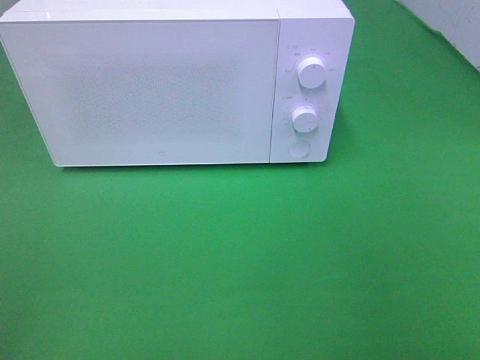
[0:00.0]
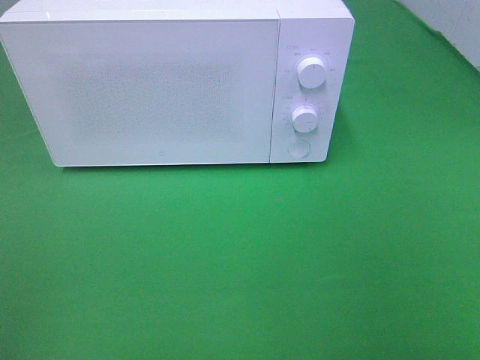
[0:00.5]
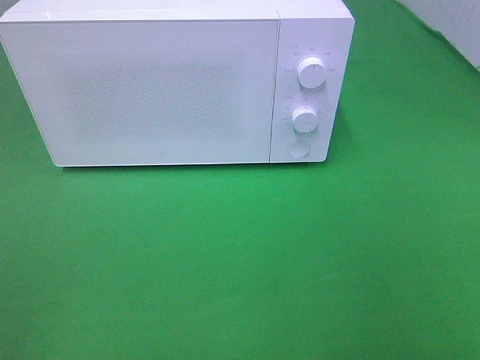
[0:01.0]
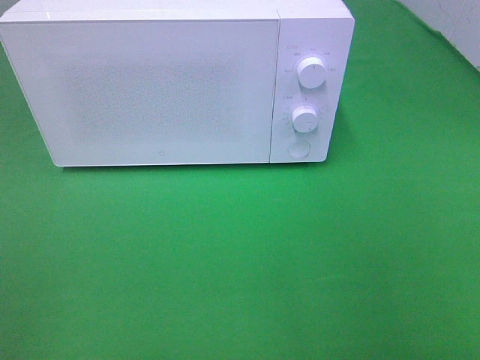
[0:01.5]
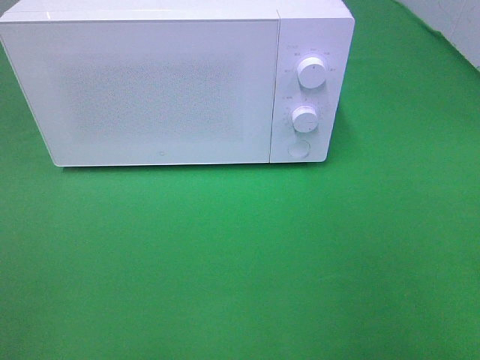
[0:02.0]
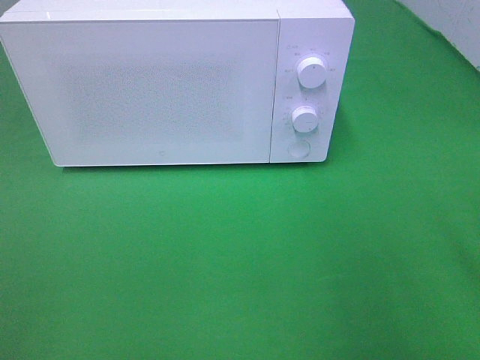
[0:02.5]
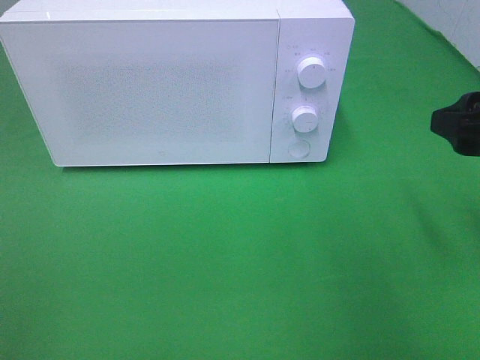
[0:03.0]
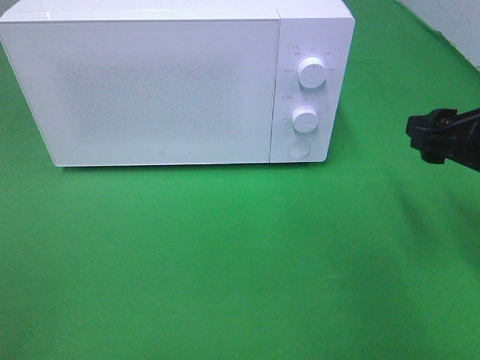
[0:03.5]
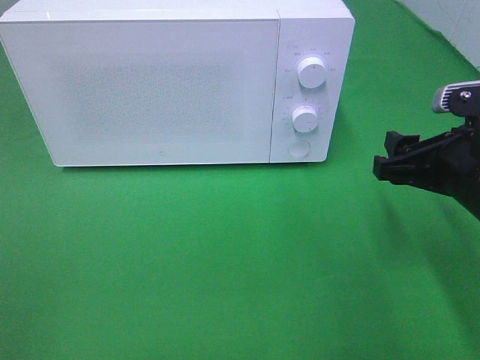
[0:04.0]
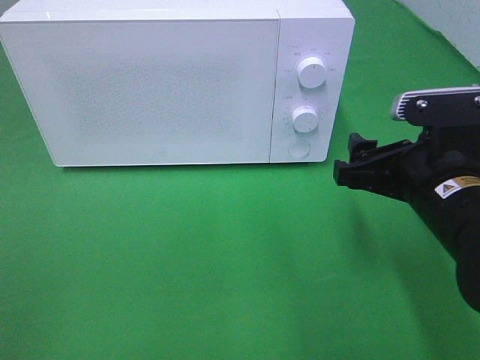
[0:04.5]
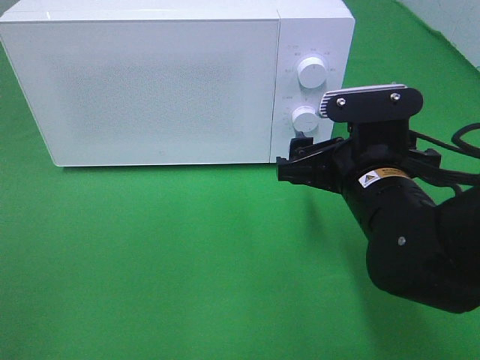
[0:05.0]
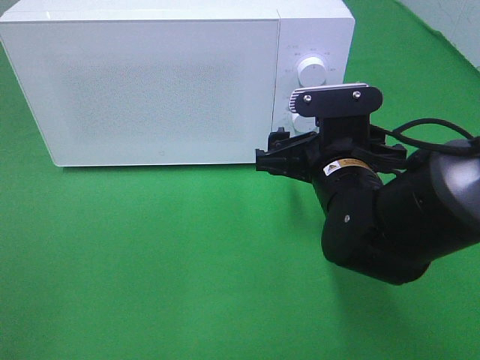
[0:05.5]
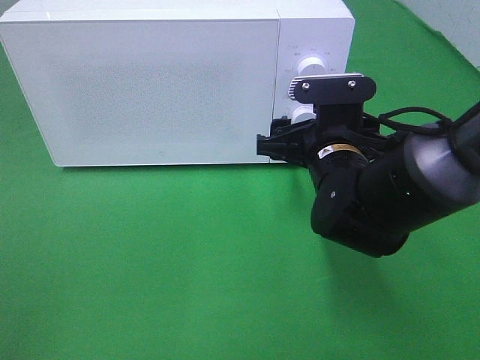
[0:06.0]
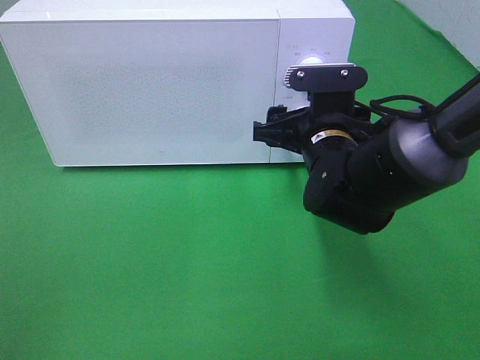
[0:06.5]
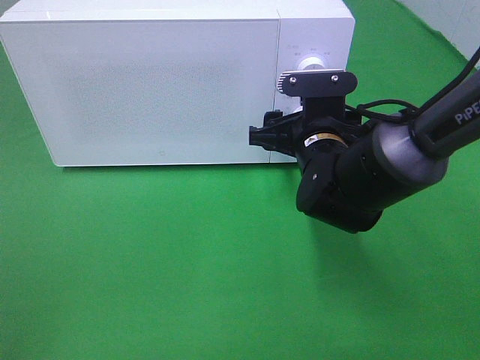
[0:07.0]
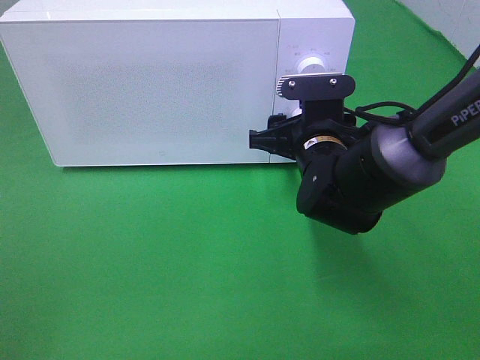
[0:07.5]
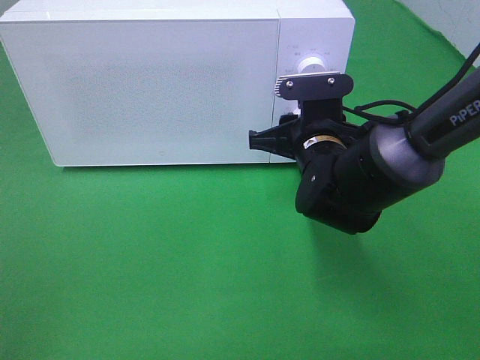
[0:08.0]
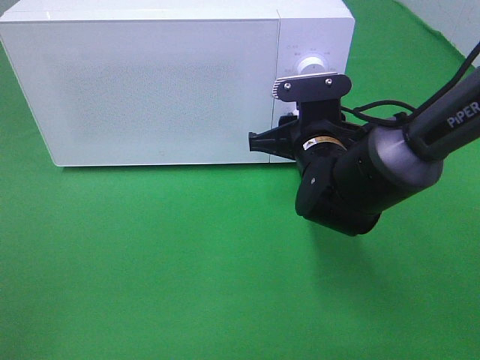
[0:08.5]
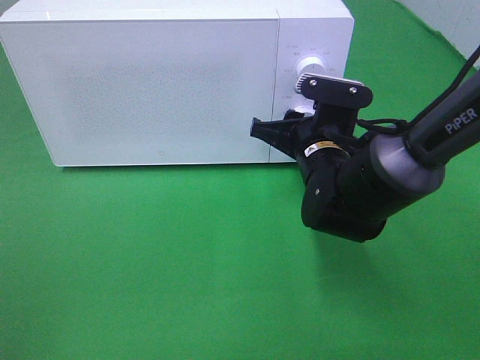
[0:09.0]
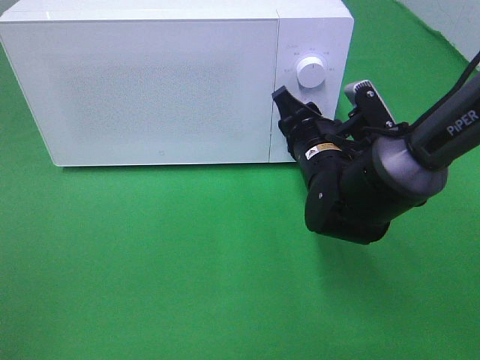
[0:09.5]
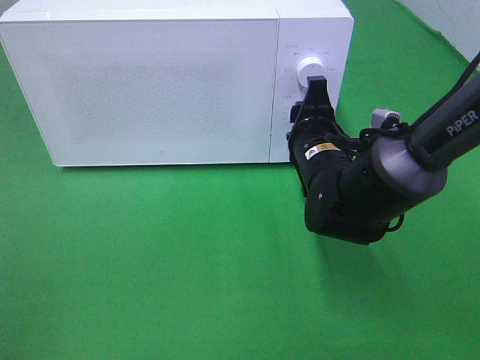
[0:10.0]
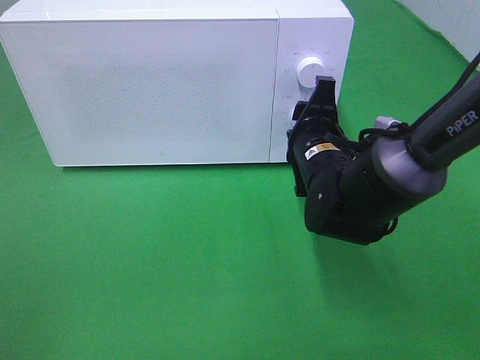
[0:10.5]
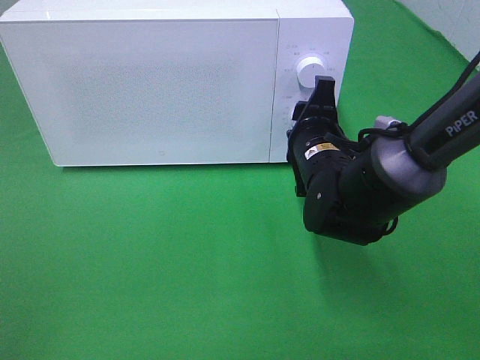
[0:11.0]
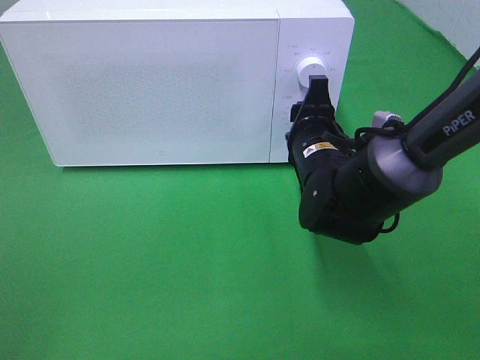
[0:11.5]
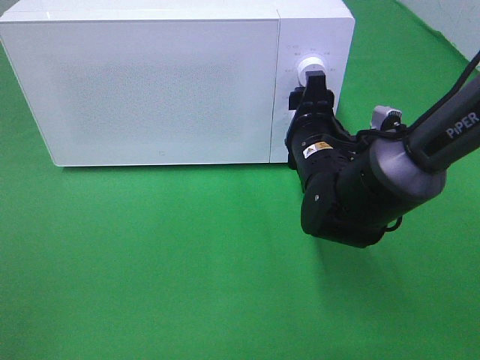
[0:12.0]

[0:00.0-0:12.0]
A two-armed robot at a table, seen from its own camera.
Task of the whole recording: Heat the burger.
0:02.0 to 0:04.0: The right gripper travels forward, downward and to the left by approximately 20 cm.
0:04.0 to 0:06.0: The right gripper shifts about 15 cm to the left and forward.
0:06.0 to 0:08.0: The right gripper closes its fingers.
0:10.0 to 0:12.0: The grippers stay close to where they were, moving slightly.

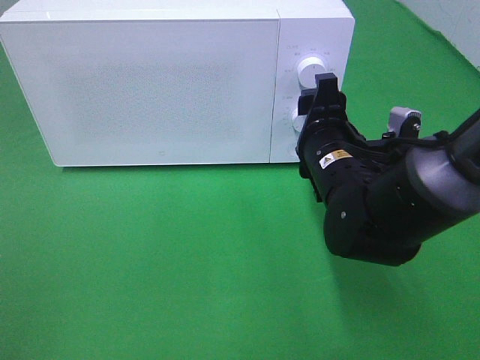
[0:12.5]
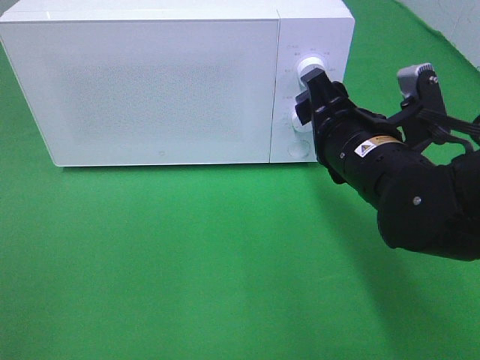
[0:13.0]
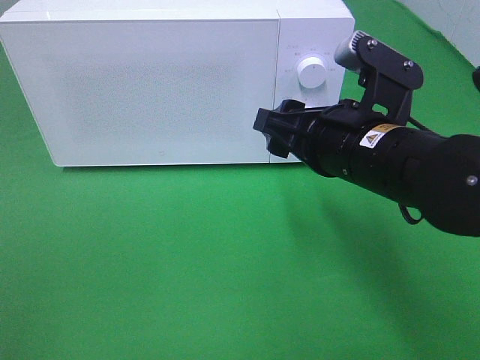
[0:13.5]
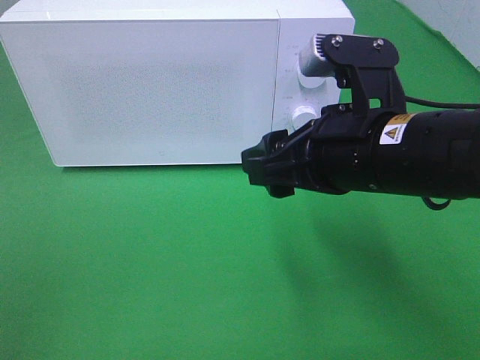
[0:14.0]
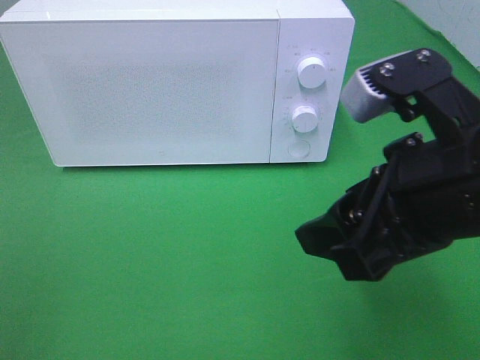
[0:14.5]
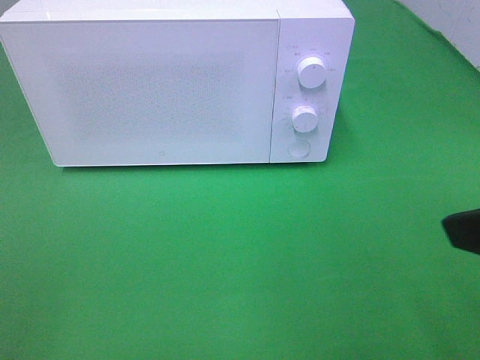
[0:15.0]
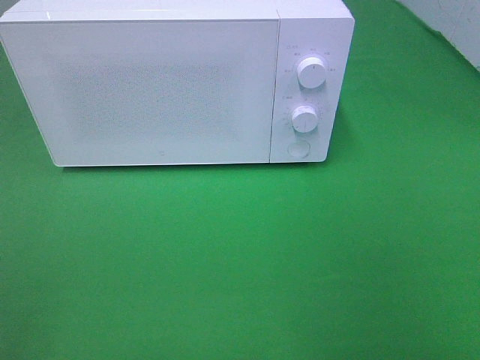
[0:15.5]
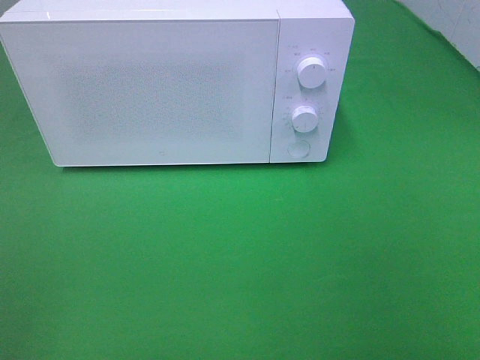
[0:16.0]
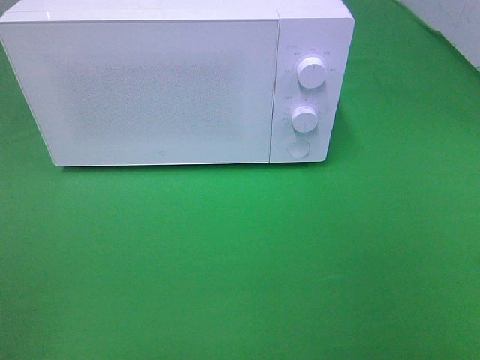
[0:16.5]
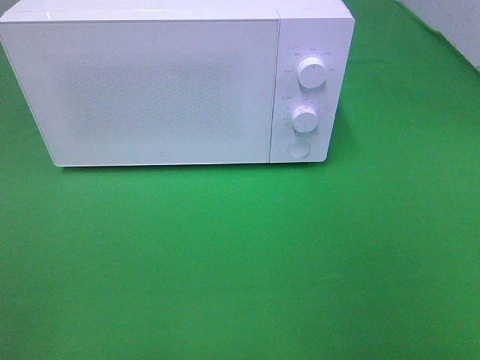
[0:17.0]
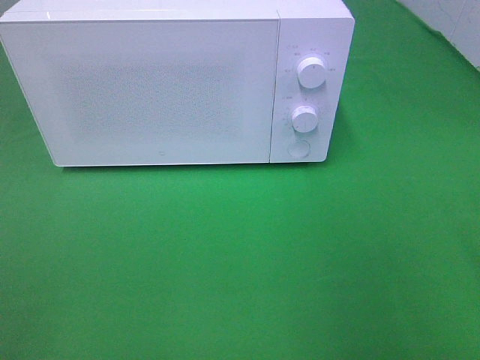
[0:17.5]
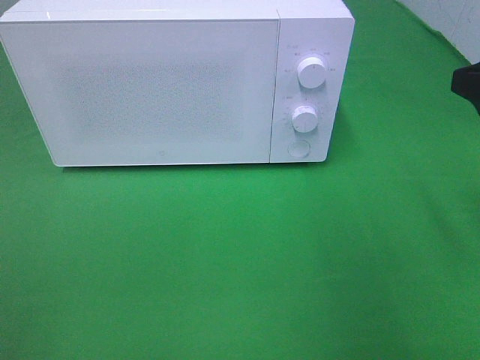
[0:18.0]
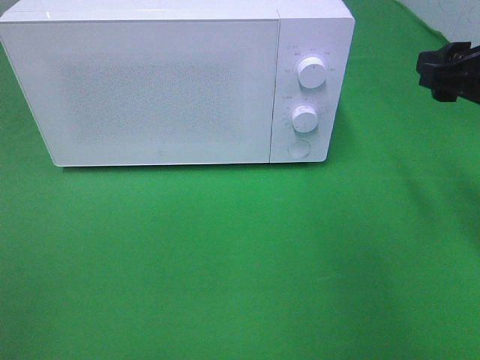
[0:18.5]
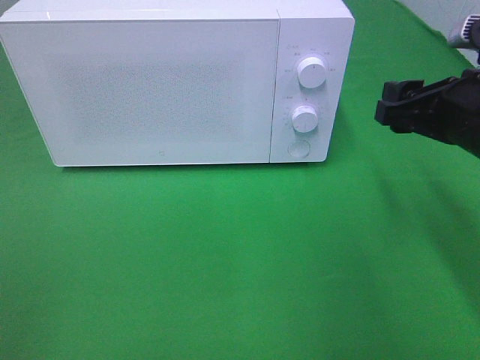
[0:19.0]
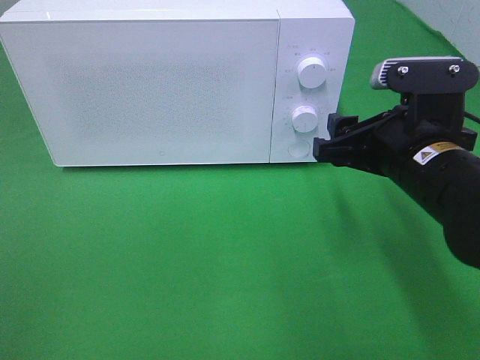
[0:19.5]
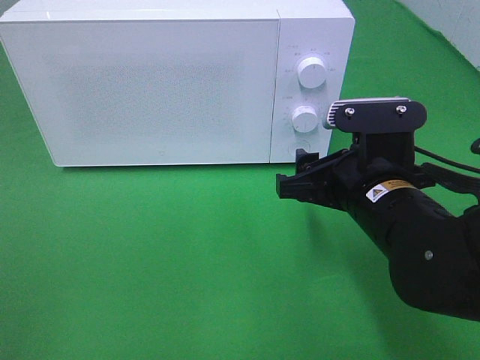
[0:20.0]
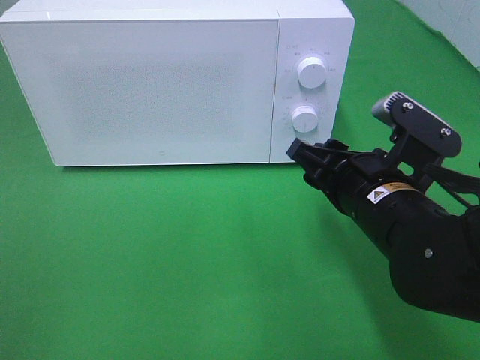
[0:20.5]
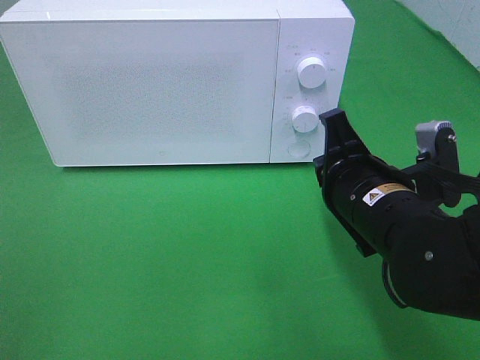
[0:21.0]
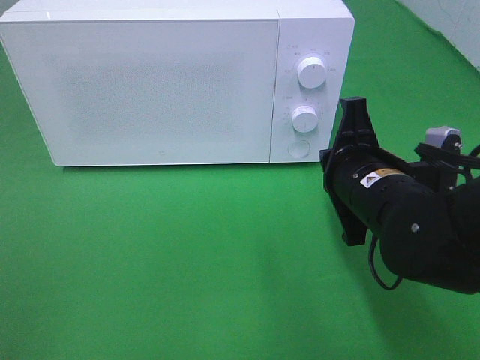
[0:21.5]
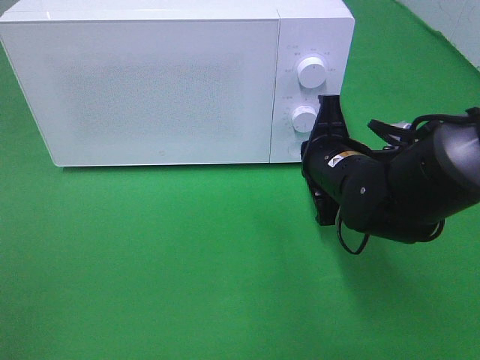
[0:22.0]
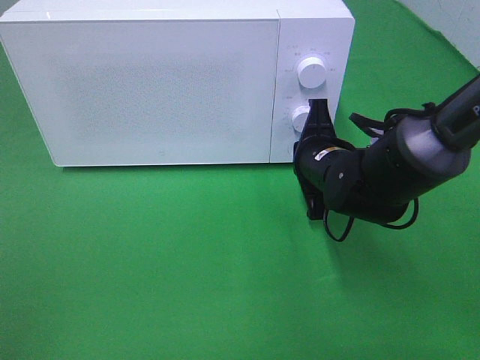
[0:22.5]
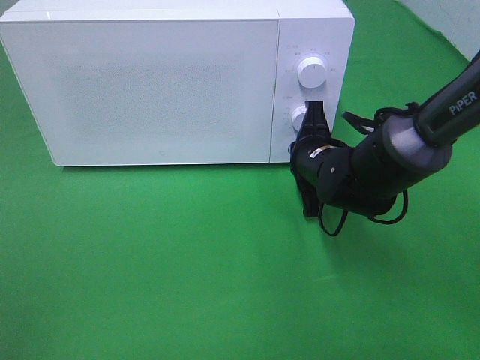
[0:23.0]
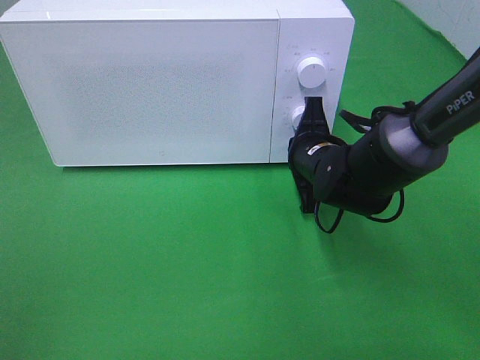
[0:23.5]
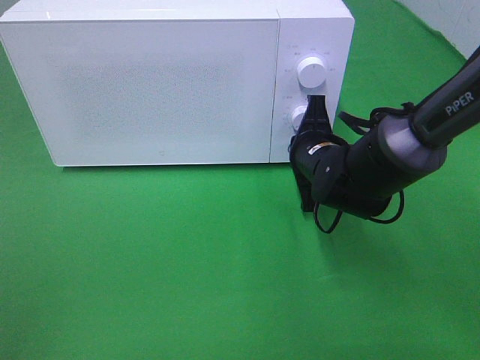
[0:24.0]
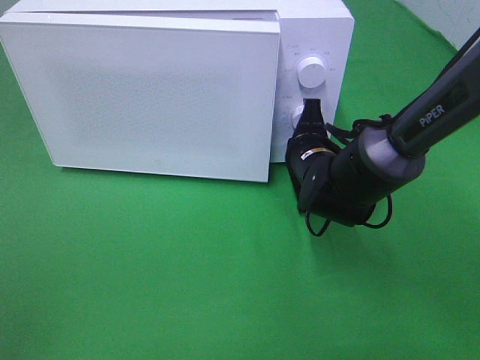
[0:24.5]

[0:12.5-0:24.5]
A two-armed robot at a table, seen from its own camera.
Task of the whole recording: Heat the burger.
0:12.5 to 0:14.5: The right gripper shifts approximately 20 cm backward and upward.
0:14.5 to 0:16.5: The right gripper shifts roughly 20 cm backward and to the right.
0:16.5 to 0:18.5: The right gripper is displaced forward by approximately 25 cm.
0:18.5 to 0:20.5: The right gripper shifts approximately 15 cm to the left and downward.
0:20.5 to 0:22.5: The right gripper moves forward and downward, about 10 cm, and closes its fingers.
0:22.5 to 0:24.5: The grippers move only a little.

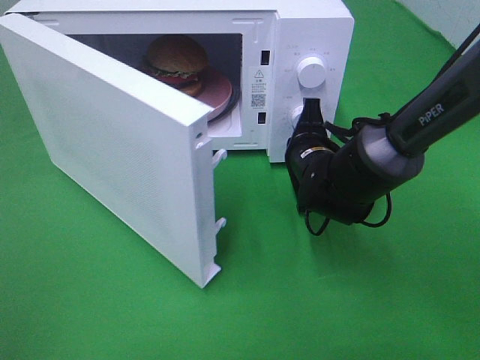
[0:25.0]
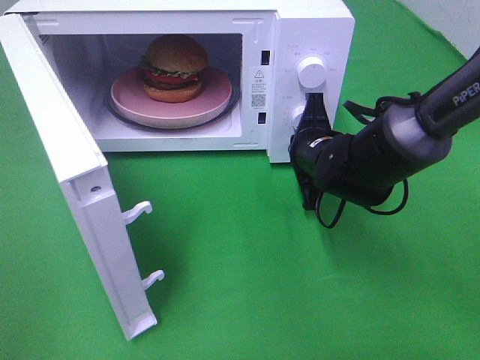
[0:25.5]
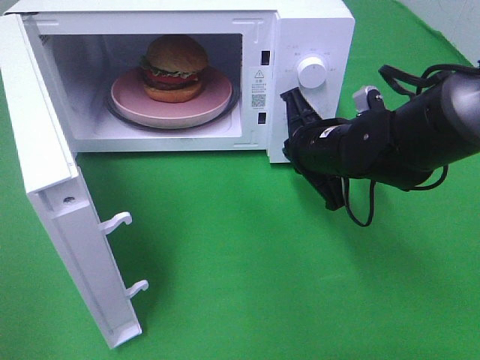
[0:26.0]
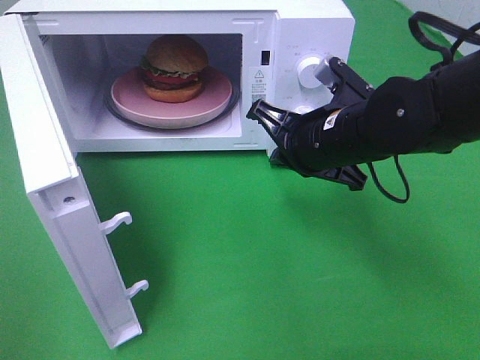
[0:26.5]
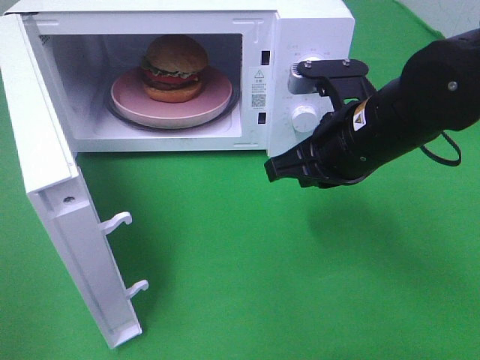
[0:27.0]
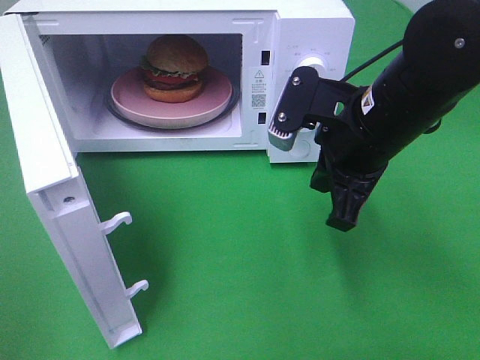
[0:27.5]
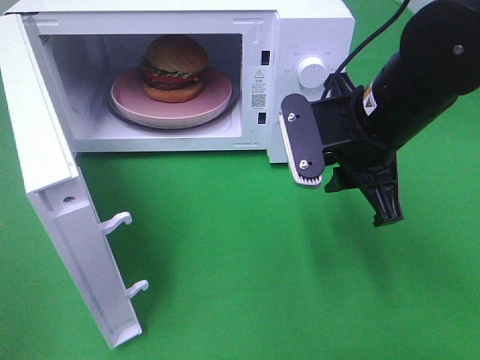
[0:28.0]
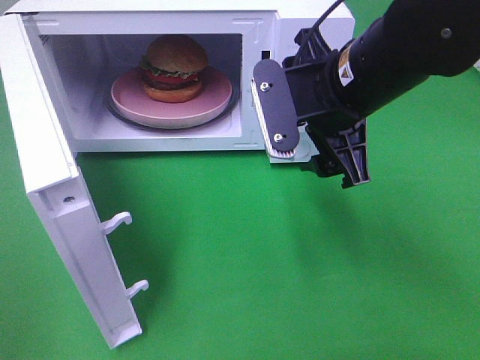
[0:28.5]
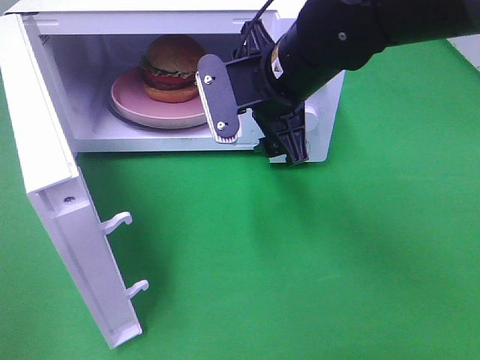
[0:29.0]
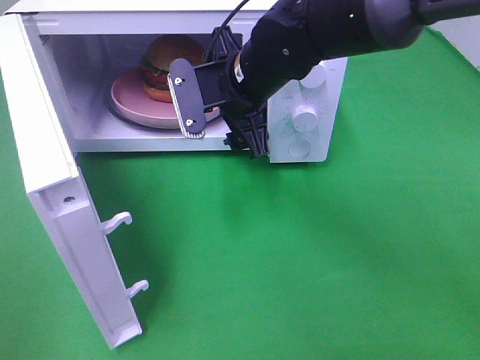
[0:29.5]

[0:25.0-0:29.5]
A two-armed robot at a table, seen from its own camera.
Task of the whole recording: Heat the burger.
0:25.0 to 0:27.0: The right gripper goes approximately 15 cm upward and backward.
0:27.0 to 0:29.5: The right gripper is displaced to the left and forward by approximately 15 cm, and opens its fingers.
